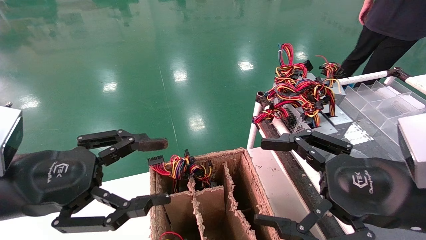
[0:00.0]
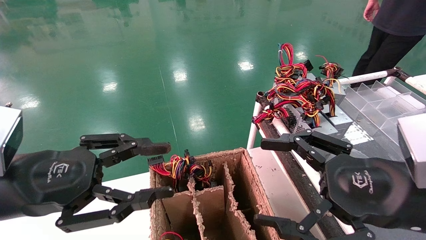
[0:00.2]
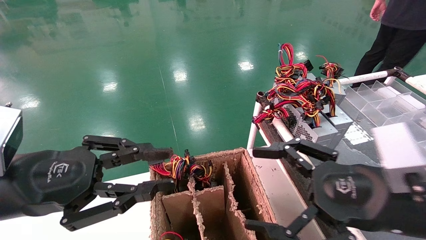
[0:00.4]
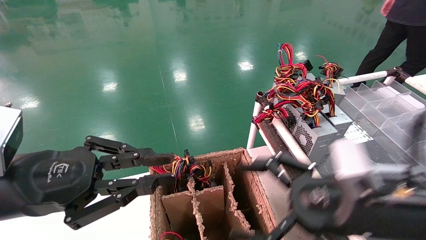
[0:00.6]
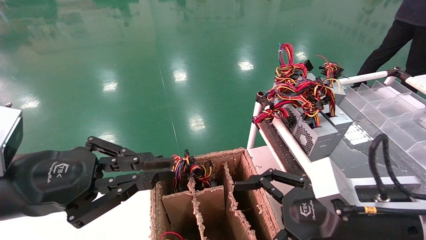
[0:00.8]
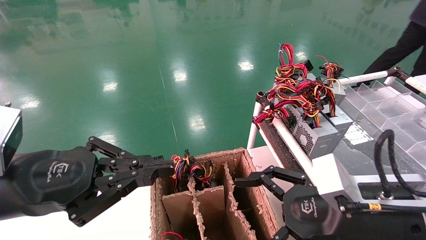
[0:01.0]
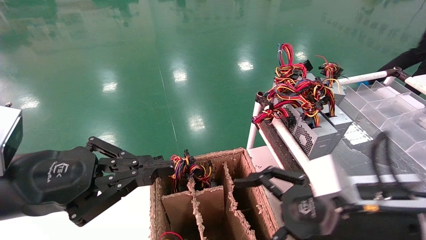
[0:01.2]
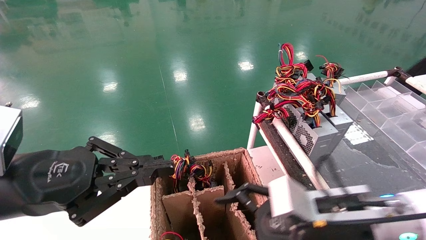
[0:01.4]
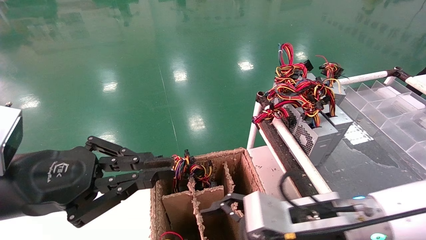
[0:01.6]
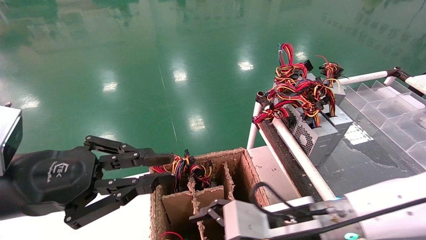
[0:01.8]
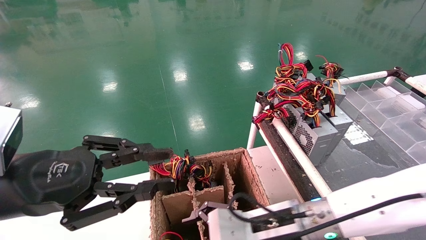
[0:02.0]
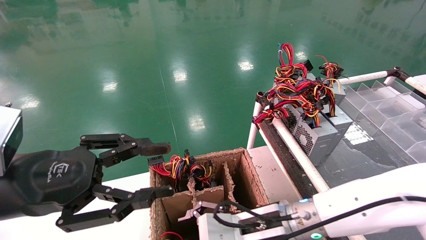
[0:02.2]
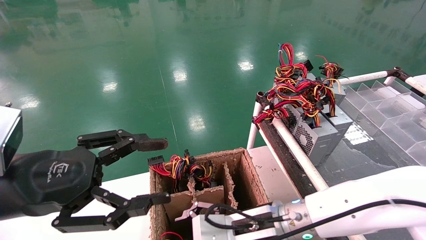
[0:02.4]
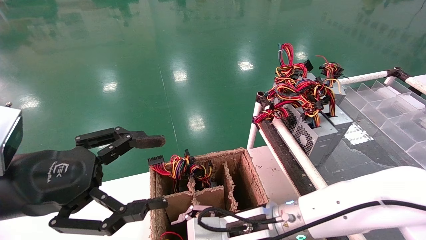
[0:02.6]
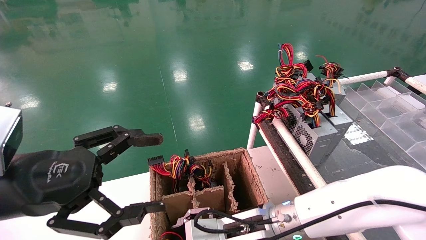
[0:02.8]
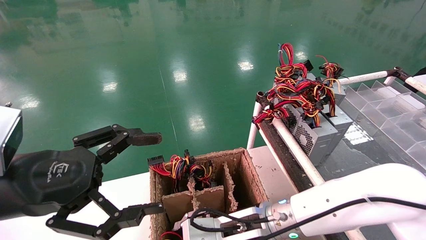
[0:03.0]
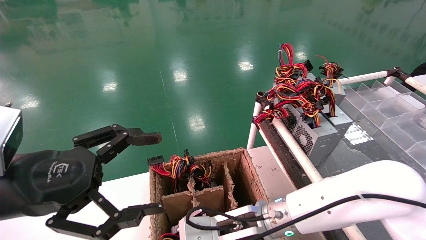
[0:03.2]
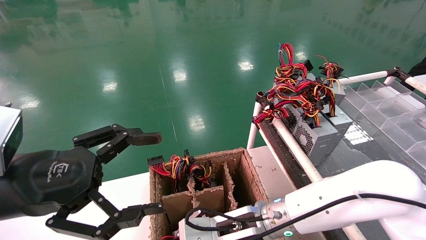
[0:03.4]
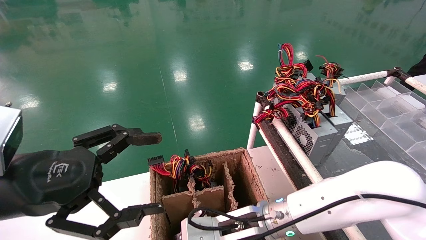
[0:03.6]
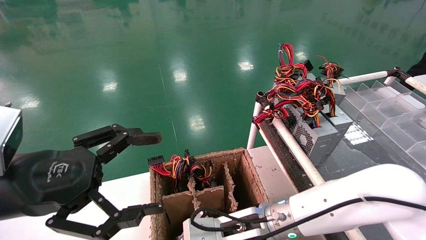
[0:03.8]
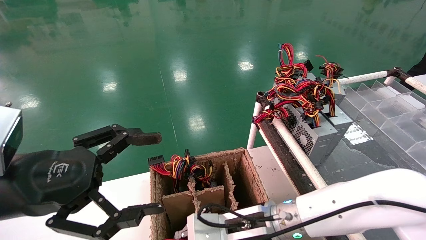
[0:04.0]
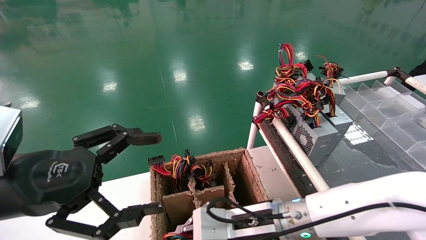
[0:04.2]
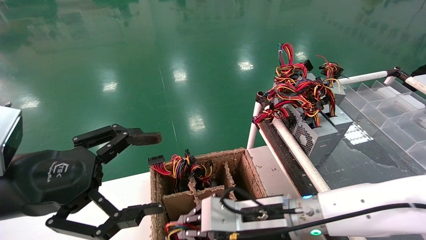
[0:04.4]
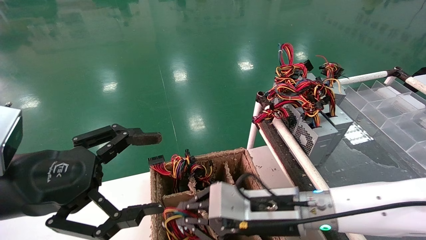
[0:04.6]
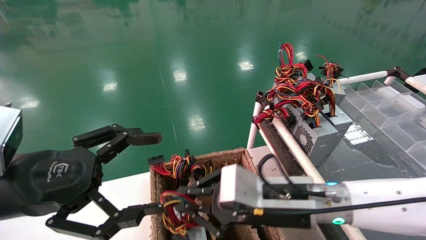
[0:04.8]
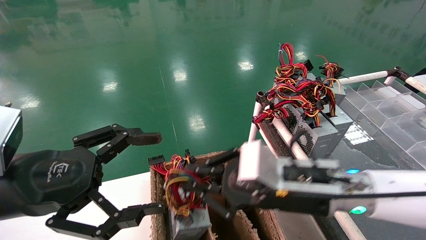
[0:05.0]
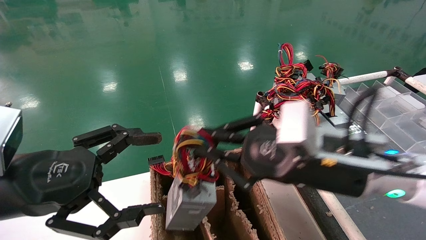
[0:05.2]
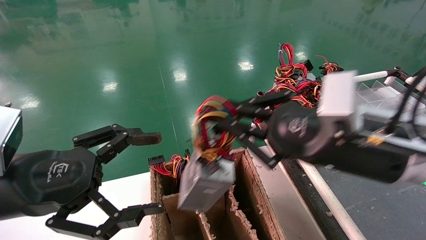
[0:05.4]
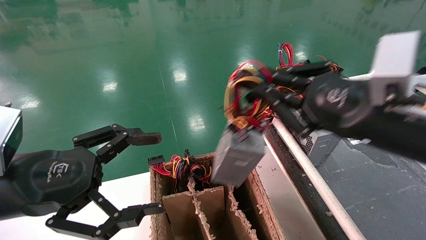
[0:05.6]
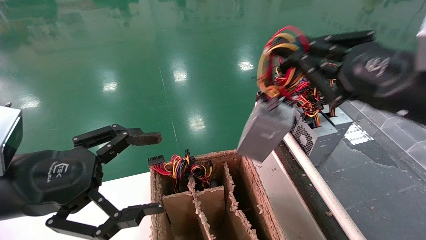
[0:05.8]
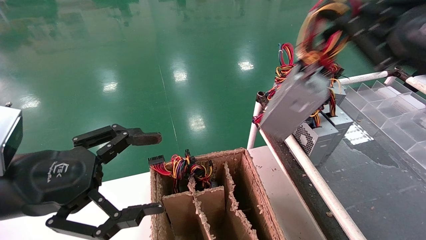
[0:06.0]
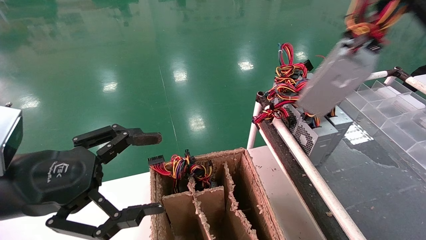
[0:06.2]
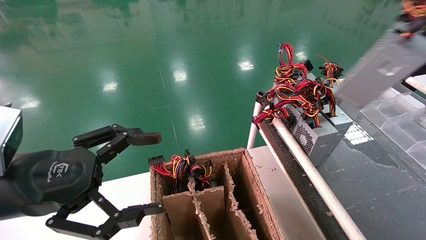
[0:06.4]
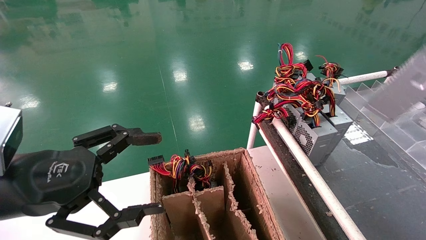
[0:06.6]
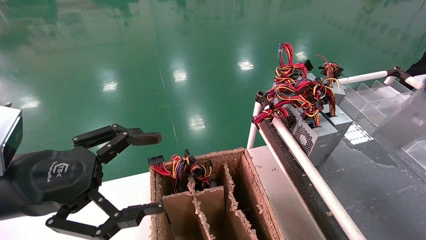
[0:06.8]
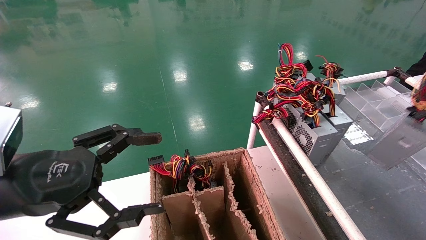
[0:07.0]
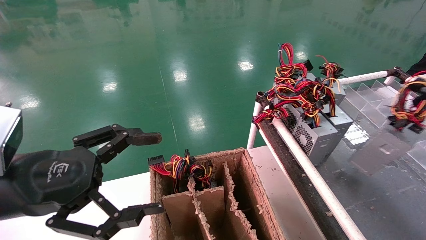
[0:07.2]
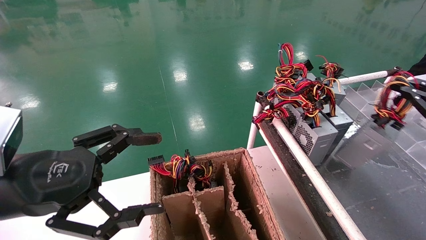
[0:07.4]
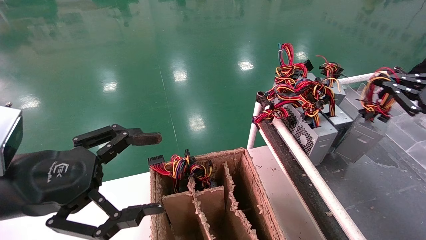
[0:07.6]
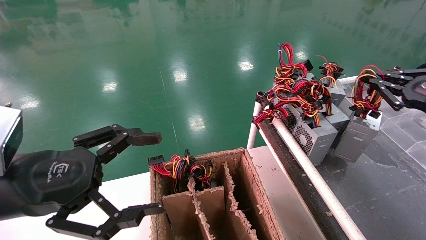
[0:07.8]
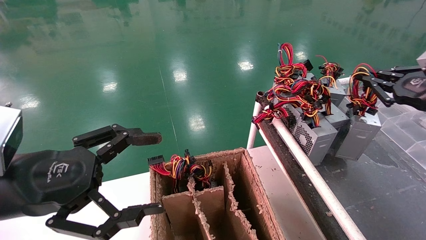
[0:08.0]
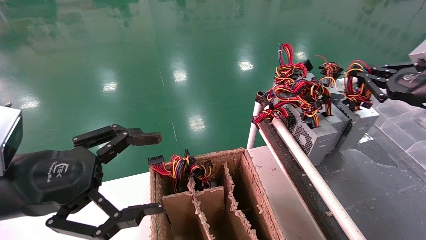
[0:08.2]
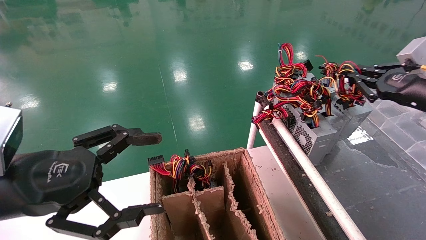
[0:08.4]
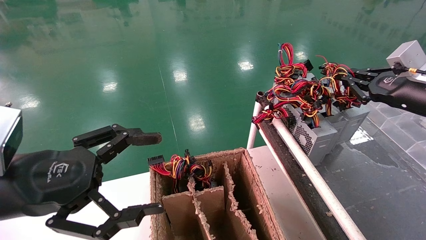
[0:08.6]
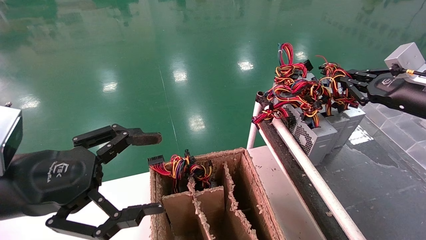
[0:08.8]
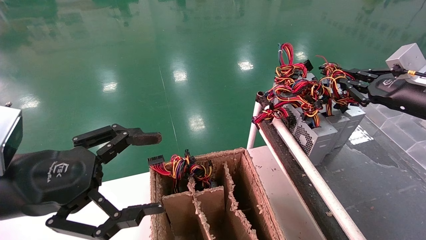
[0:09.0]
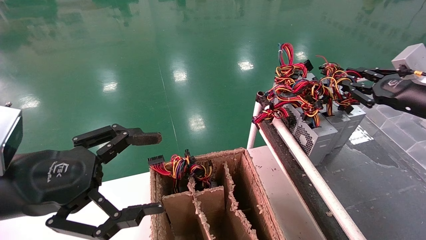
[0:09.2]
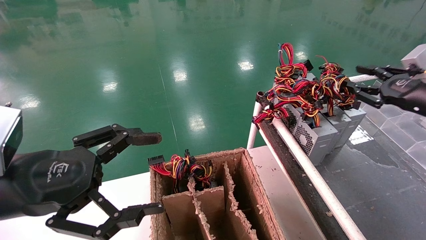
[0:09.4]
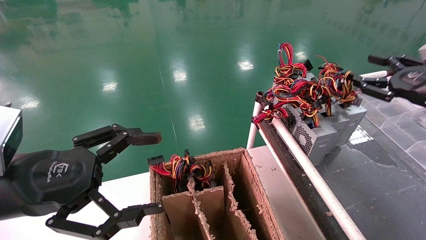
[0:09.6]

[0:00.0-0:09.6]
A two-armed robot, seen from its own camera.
Step, 0:01.0 to 0:03.8: Grab and lift the power supply from the large box.
Step, 0:04.0 to 0:09.0: Place the power supply on the operating table.
0:00.0 to 0:01.6: The left gripper closes, while the right gripper shifts roughly 15 cm to the left, downward and forward.
0:01.6 to 0:03.2: The right gripper goes about 10 cm to the left, and closes up, while the left gripper opens its fingers.
0:03.2 to 0:04.8: The right gripper goes approximately 10 cm upward and to the right, and closes up.
0:04.8 to 0:06.4: The right gripper shifts some 35 cm to the right and upward.
0:06.4 to 0:08.0: The right gripper travels forward and downward by roughly 15 cm.
0:08.0 to 0:09.6: The right gripper opens.

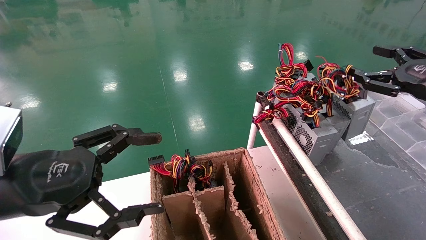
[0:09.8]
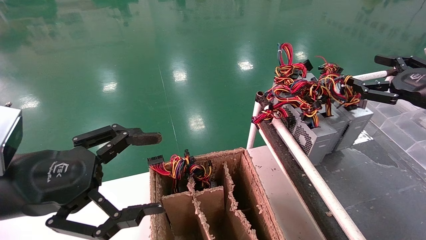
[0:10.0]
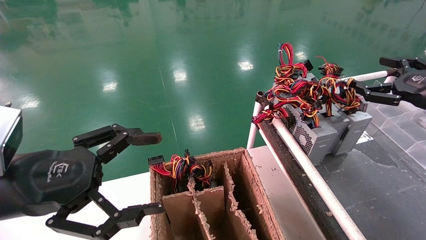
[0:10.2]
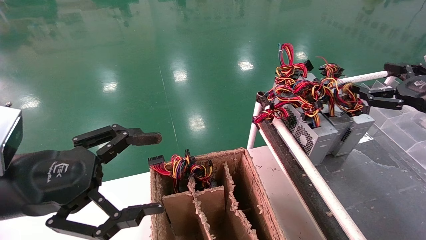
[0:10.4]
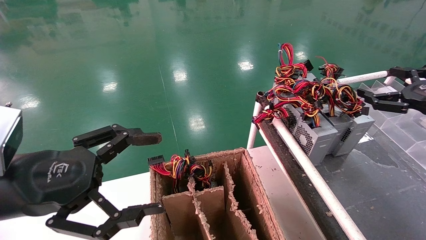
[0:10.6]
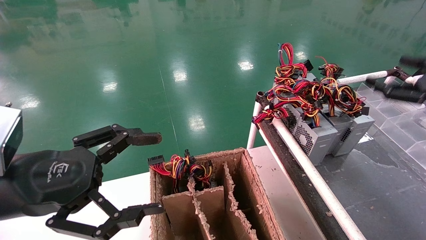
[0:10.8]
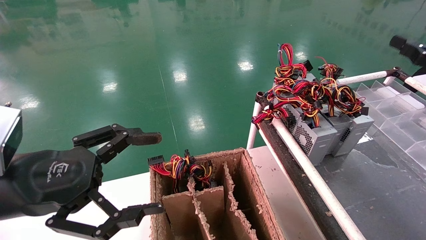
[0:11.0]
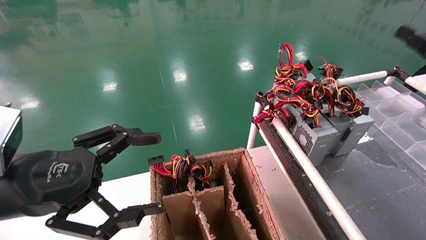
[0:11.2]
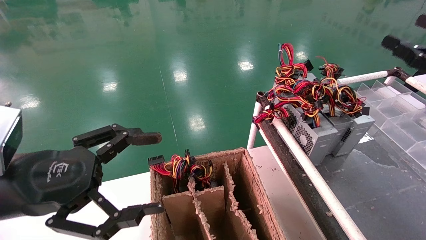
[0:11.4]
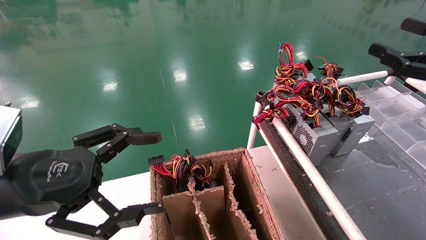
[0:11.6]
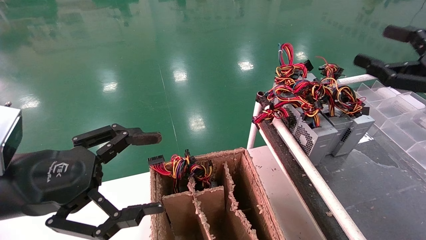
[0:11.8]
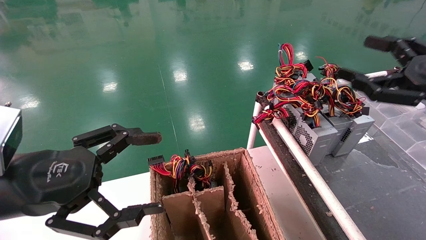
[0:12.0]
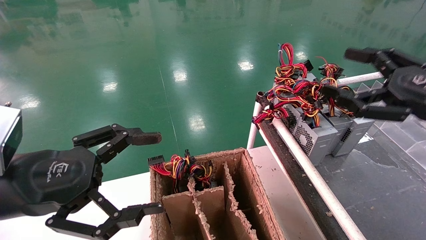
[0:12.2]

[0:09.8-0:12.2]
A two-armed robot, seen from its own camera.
0:09.8 to 0:11.0: The right gripper moves approximately 5 cm, and opens.
0:11.0 to 0:12.2: The right gripper heads to the left, covering about 10 cm.
